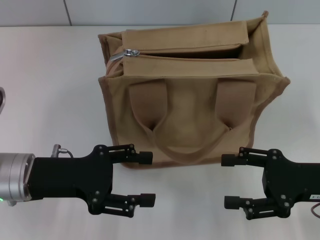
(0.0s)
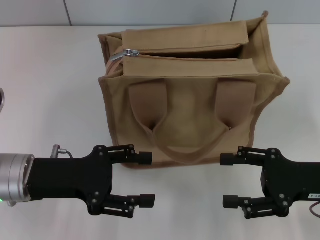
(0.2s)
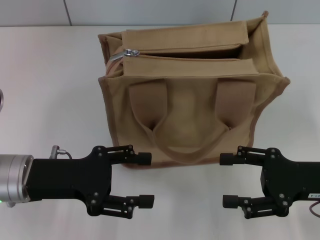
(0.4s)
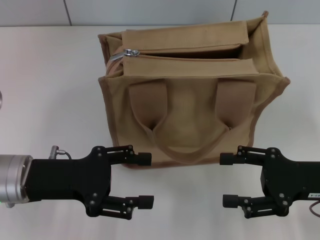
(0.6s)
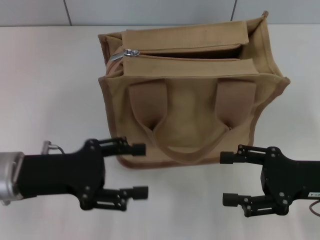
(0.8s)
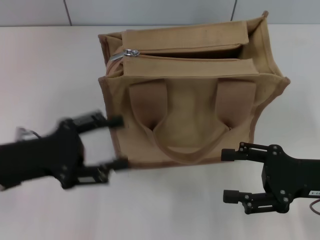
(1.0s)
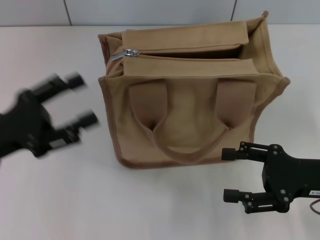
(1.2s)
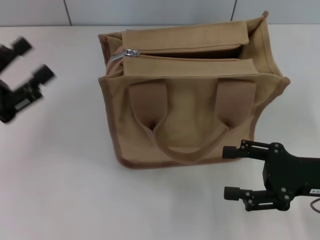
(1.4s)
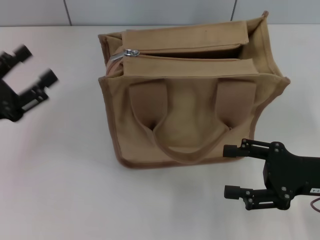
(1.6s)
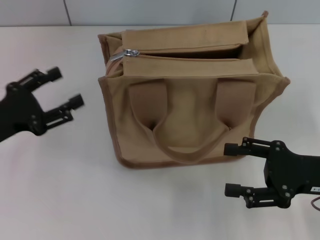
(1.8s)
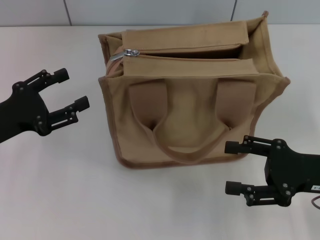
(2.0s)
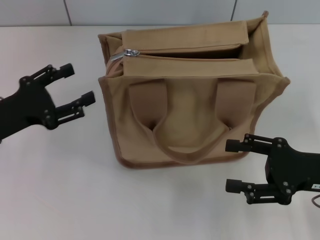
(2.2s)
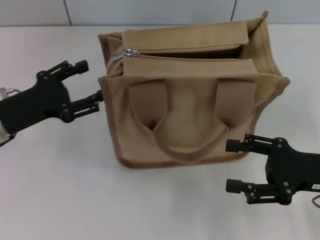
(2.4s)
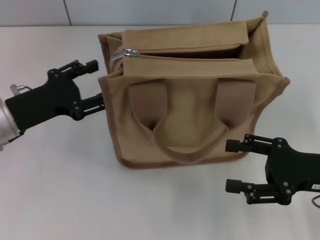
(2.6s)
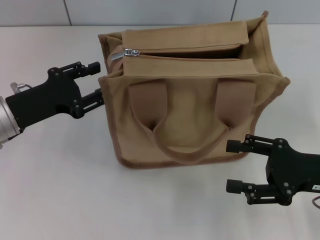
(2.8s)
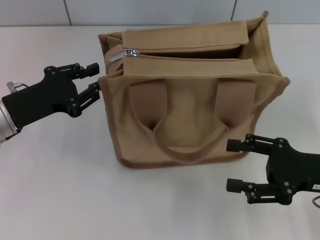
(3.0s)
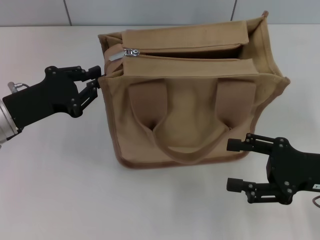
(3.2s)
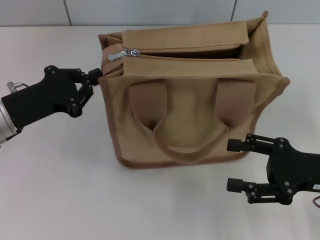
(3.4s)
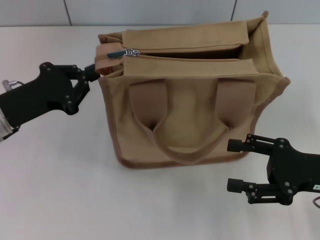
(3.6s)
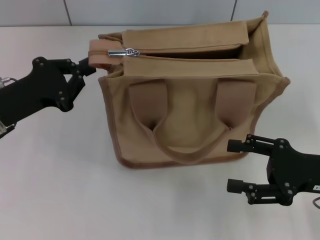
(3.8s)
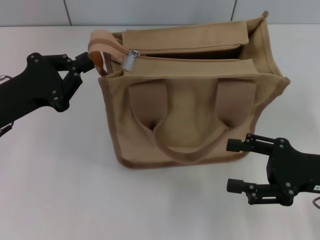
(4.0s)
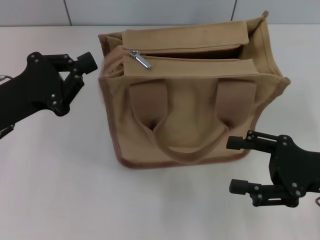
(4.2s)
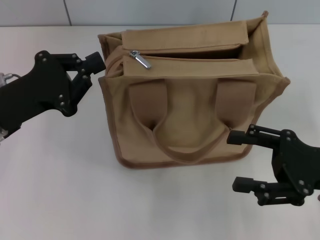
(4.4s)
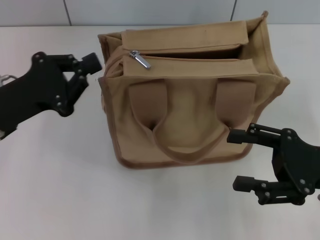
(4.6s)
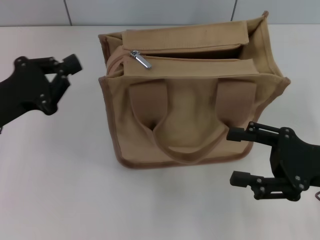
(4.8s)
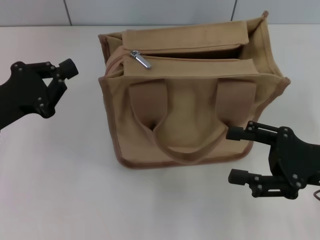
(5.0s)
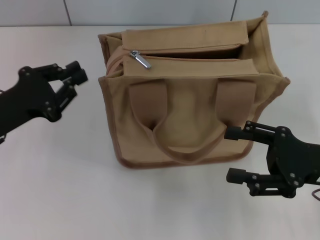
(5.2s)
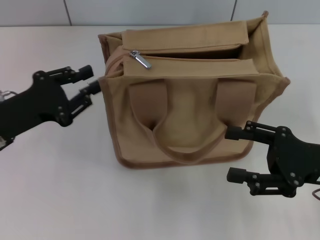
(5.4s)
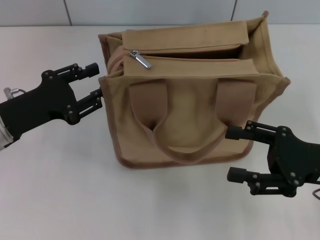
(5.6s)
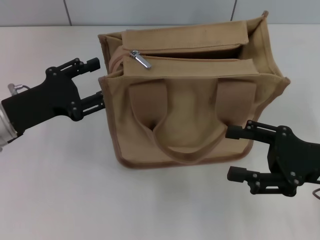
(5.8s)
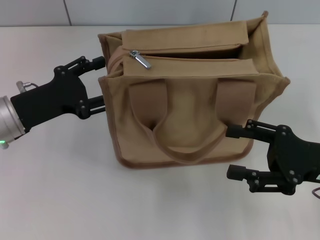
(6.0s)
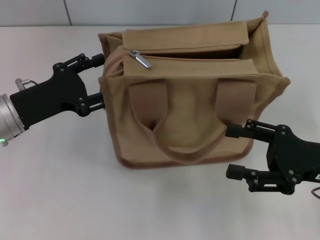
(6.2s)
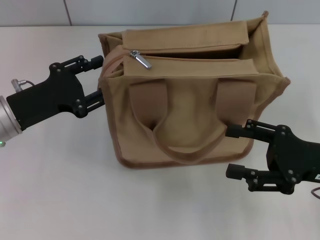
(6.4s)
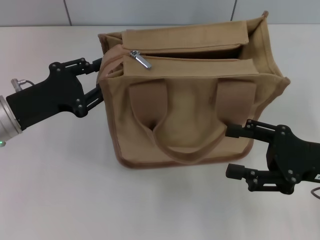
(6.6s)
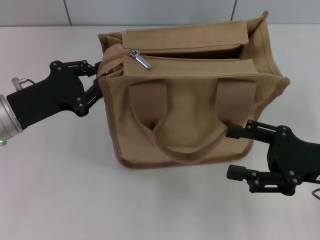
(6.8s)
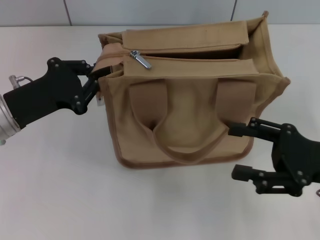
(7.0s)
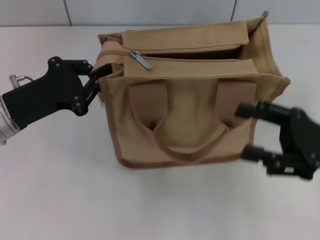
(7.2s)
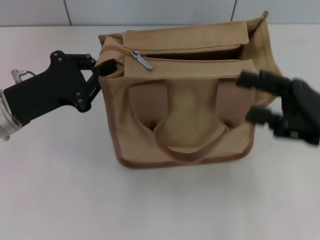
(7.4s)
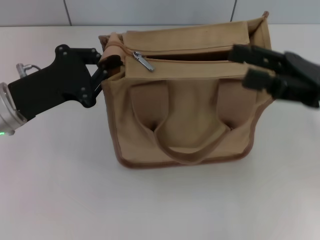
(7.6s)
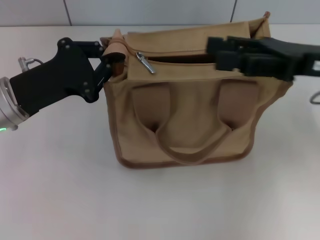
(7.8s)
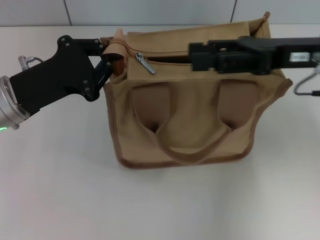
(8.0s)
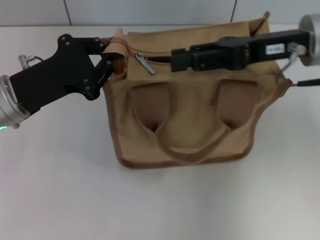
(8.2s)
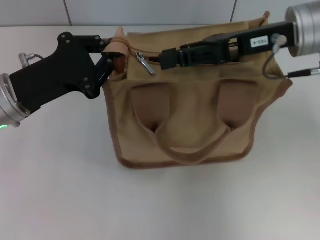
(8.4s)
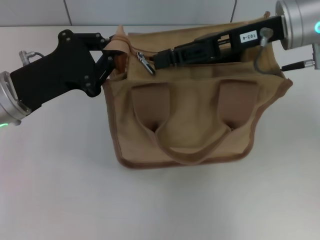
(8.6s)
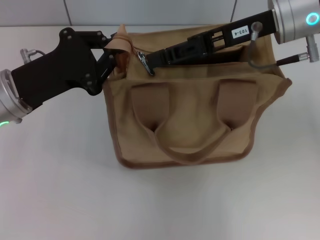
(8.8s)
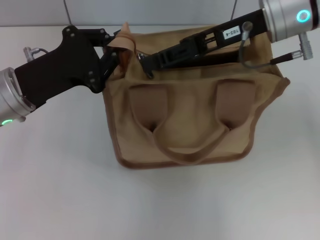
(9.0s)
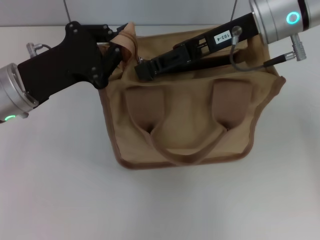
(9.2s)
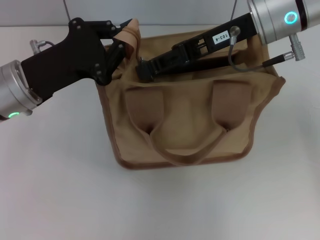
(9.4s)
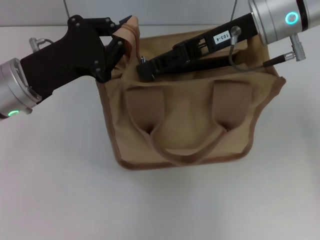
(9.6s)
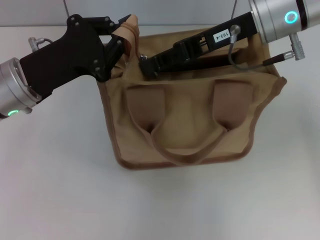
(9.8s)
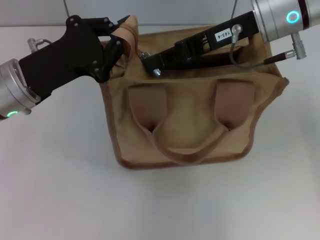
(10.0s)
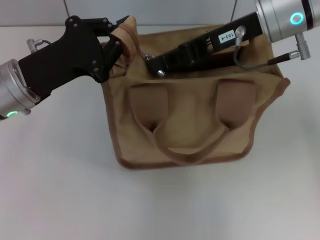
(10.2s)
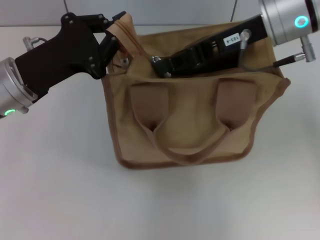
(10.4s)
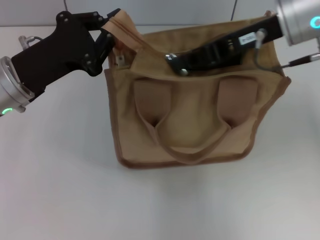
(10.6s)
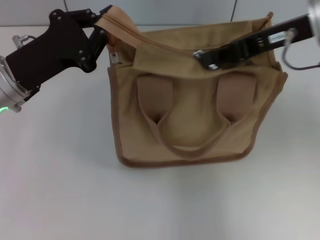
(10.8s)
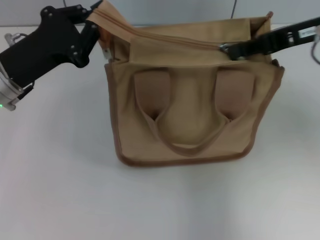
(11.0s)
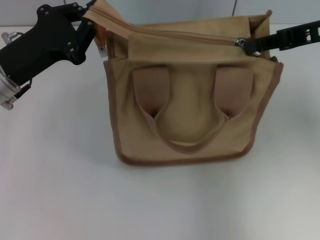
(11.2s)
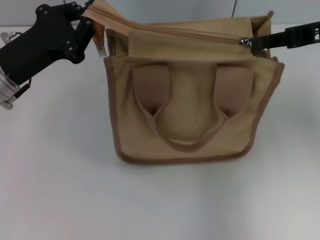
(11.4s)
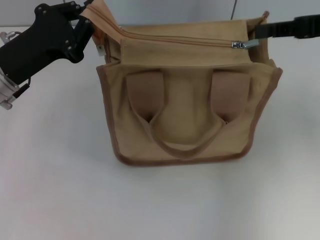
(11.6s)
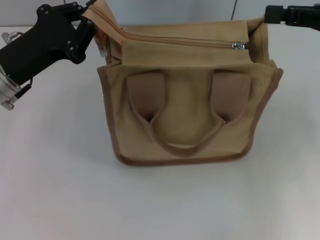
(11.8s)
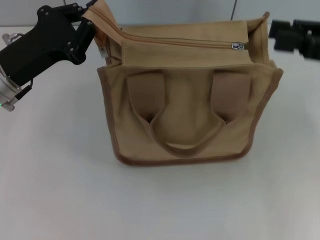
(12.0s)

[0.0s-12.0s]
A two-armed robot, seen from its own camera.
Step, 0.0s to 11.6s: Pull up the zipper with your right hand.
0.0s to 1.6s: The left gripper travels to the left by roughly 10 cm.
1.6s to 3.0s: The left gripper is displaced forward by roughly 5 cm.
3.0s to 4.4s: The left gripper closes up.
4.4s to 6.0s: The left gripper opens.
6.0s to 7.6s: The left gripper closes its fingers. Meanwhile the right gripper goes roughly 10 cm upward and forward.
7.6s to 9.0s: The right gripper shifts approximately 15 cm to the left, forward and upward, and closes up.
9.0s to 10.4s: The right gripper closes up.
10.4s to 12.0s: The right gripper goes some 15 cm to the right and backward.

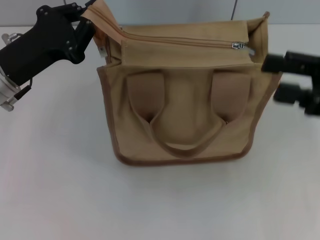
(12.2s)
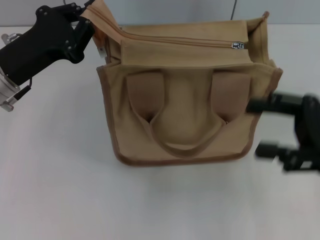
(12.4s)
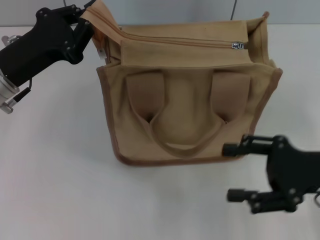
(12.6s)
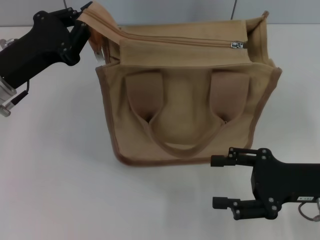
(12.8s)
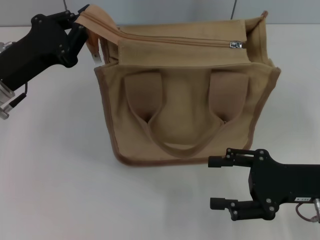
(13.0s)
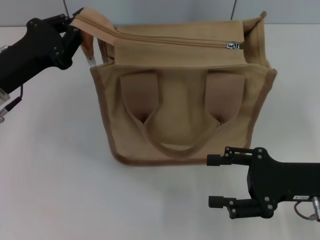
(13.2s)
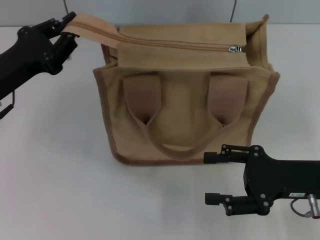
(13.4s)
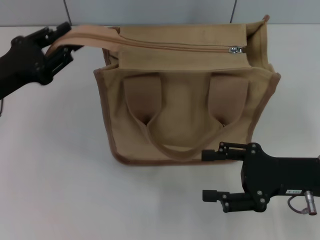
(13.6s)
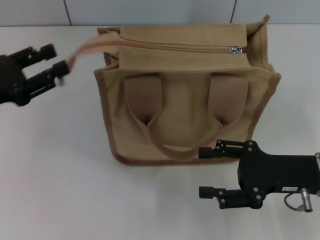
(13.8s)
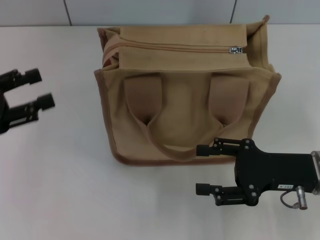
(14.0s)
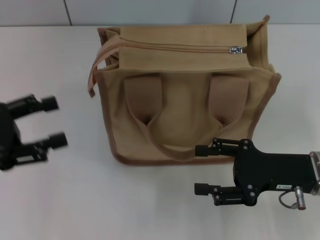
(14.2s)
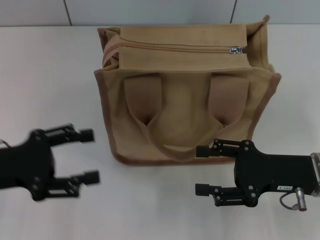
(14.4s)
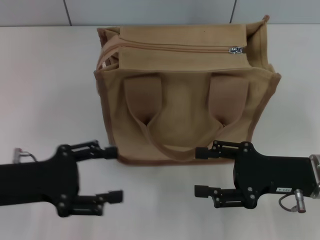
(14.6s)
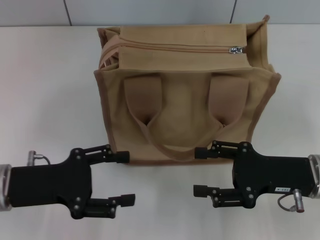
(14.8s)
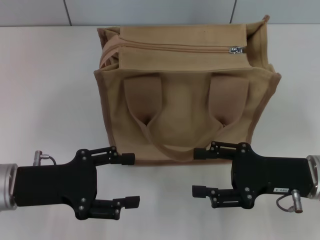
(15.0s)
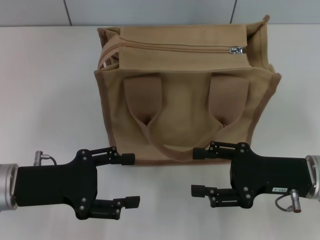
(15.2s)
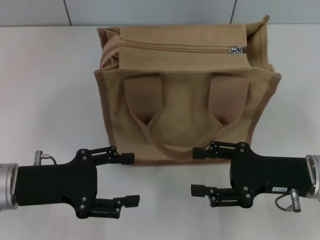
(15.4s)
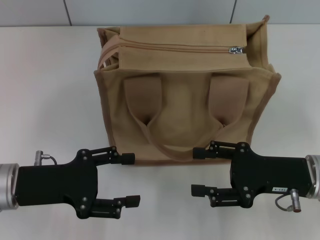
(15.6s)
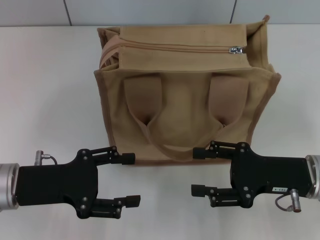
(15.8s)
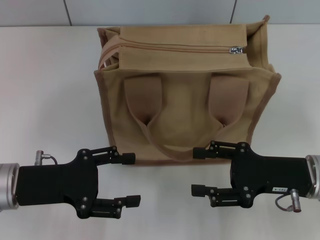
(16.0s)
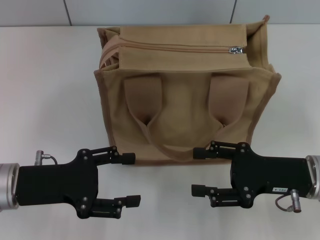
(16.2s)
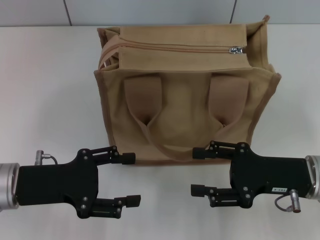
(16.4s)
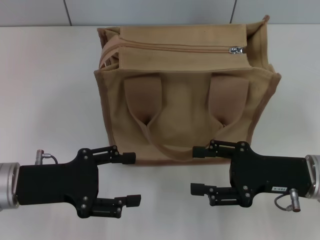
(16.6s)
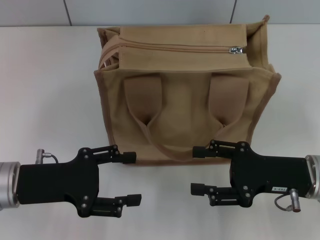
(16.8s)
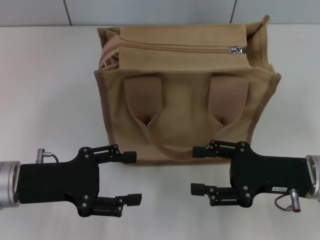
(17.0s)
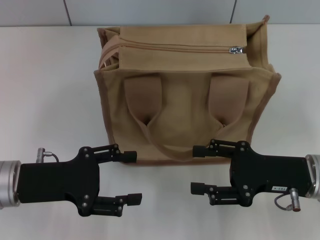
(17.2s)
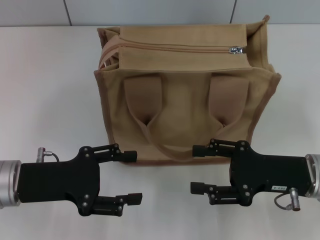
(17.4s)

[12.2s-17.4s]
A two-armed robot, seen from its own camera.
Step, 12.2s to 13.6s: Grab the zipper with your left hand.
12.2s to 14.0s: The right gripper goes some 10 cm downward and to the left. The left gripper goes approximately 10 cm to the left and backward, and opens.
14.0s to 15.6s: The left gripper moves to the right and downward, roughly 10 cm.
15.6s to 17.4s: Both grippers stay put.

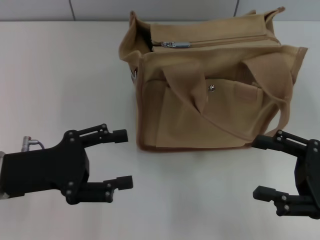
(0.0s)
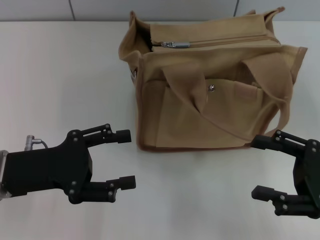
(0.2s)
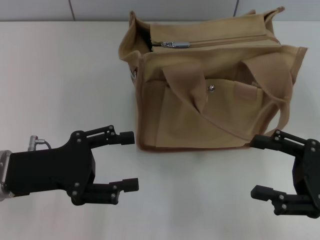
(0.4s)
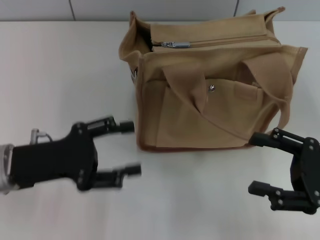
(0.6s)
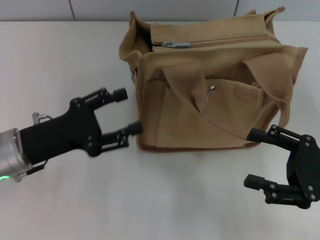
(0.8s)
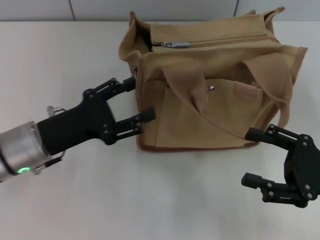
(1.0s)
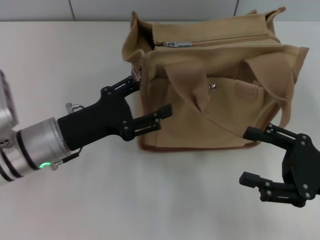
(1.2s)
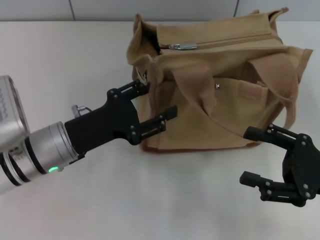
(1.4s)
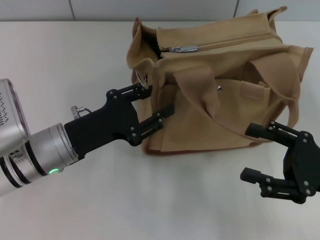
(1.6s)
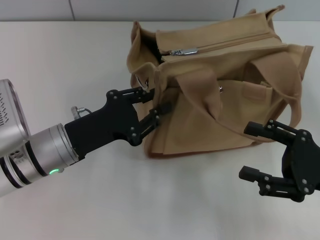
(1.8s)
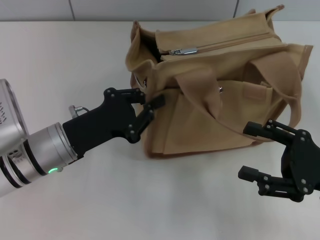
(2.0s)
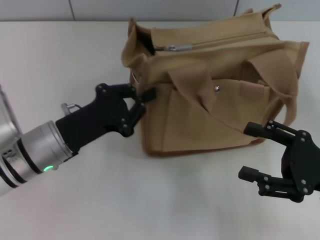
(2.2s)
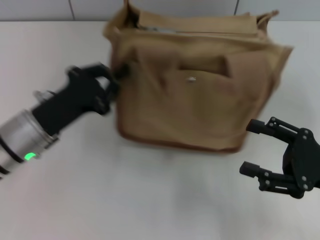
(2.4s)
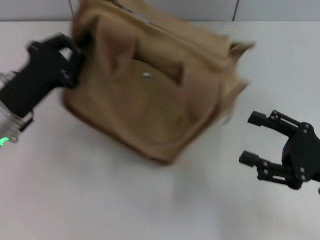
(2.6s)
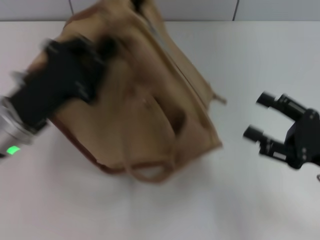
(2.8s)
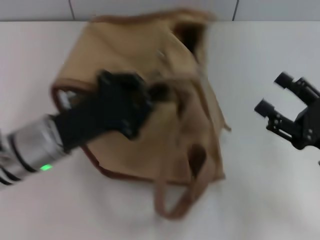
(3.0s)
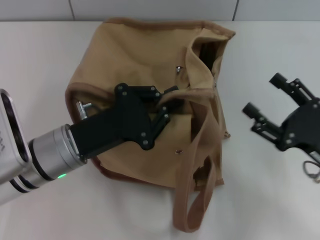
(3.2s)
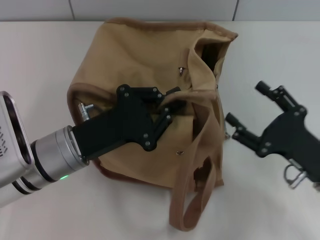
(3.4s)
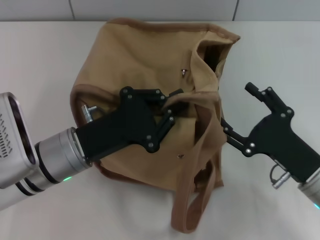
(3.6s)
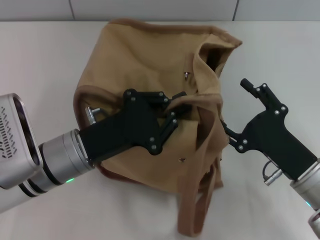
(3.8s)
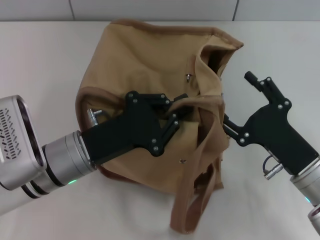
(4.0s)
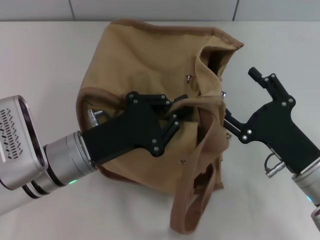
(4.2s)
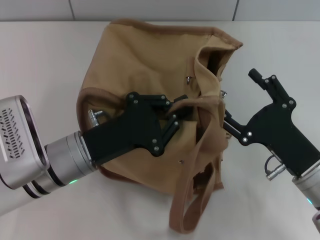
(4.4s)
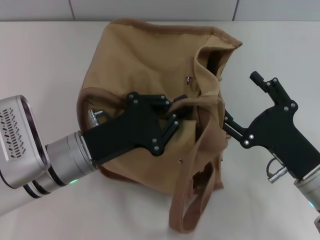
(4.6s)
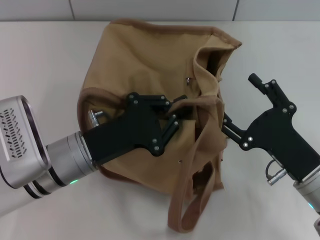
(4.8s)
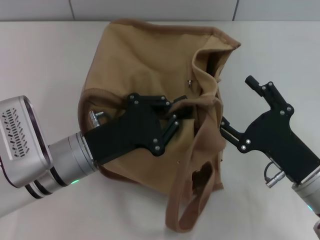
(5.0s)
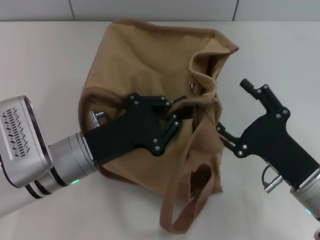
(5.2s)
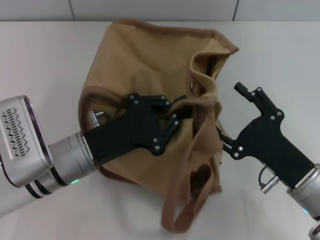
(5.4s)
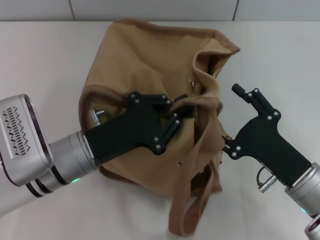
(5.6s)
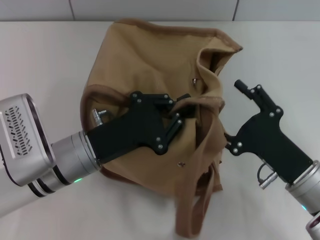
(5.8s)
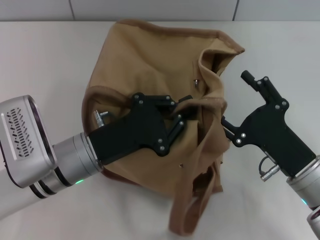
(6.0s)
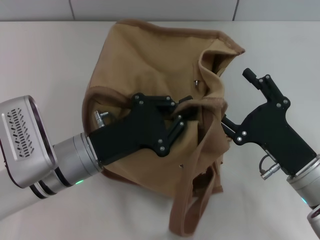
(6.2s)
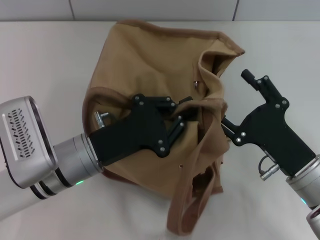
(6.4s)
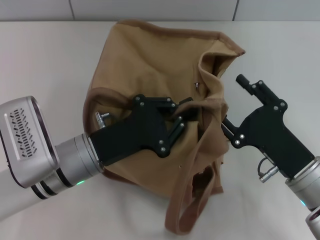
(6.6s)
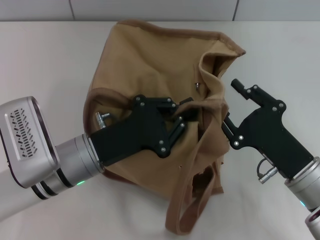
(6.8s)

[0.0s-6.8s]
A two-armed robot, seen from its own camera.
0.0s to 1.4s: The left gripper goes approximately 5 cm to the right.
1.4s to 2.8s: The left gripper ends up some 5 cm from where it was, and closes up.
2.8s to 4.0s: The left gripper moves to the right, some 5 cm, while the right gripper heads to the left, covering about 5 cm.
4.0s to 6.8s: There are only small adjustments of the grippers.
